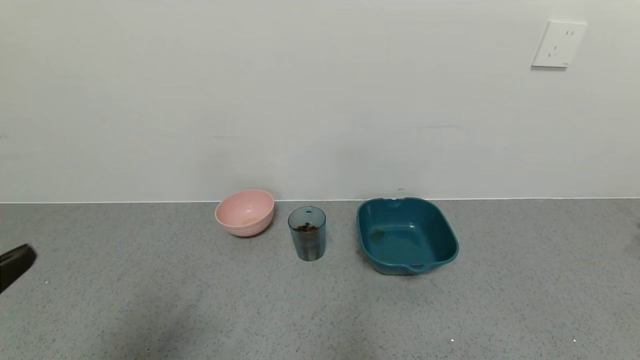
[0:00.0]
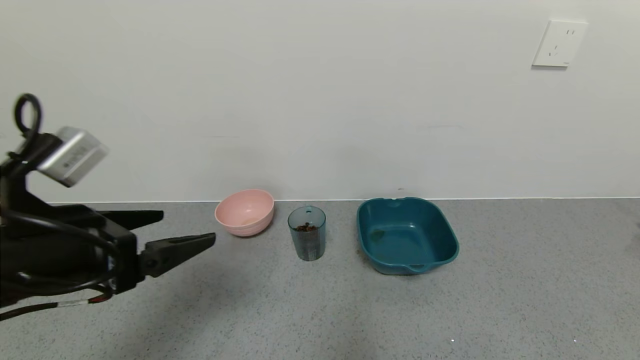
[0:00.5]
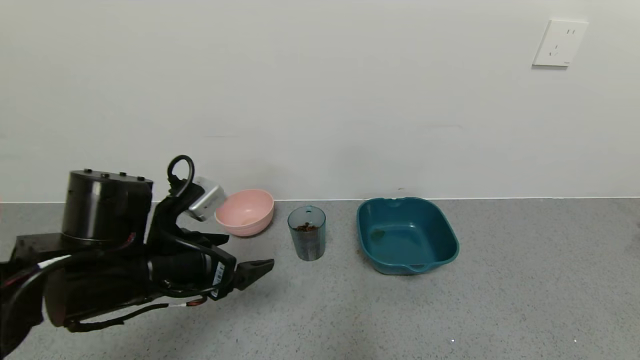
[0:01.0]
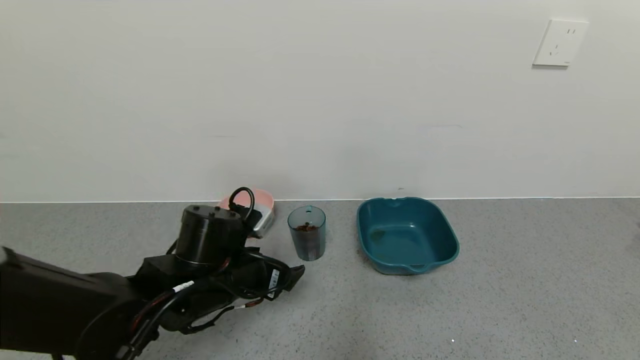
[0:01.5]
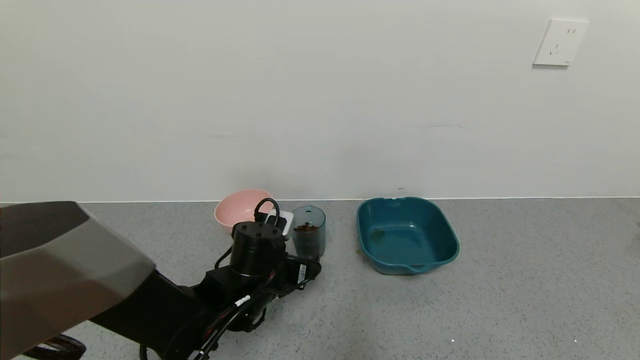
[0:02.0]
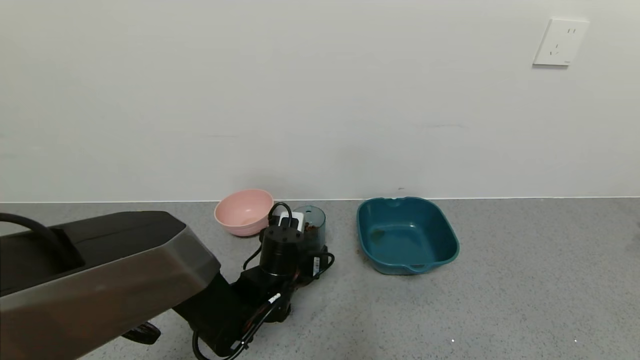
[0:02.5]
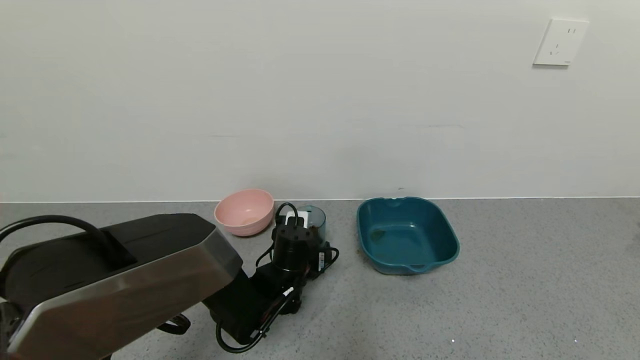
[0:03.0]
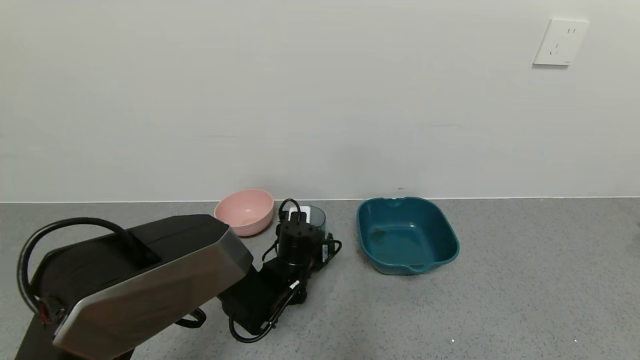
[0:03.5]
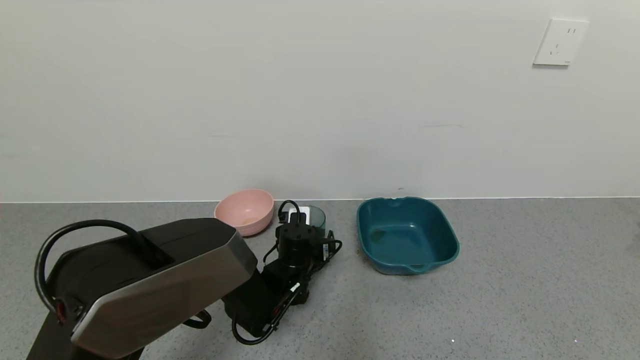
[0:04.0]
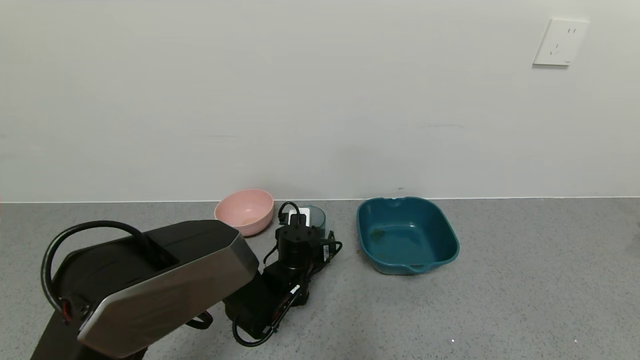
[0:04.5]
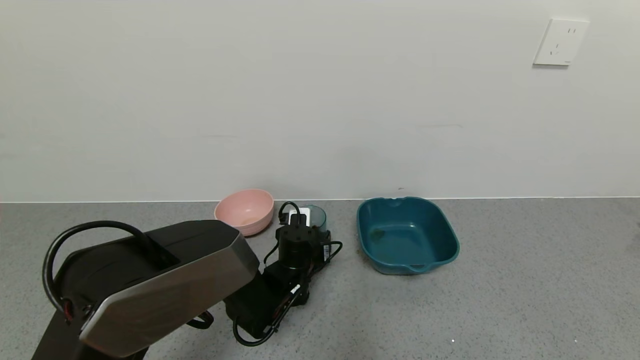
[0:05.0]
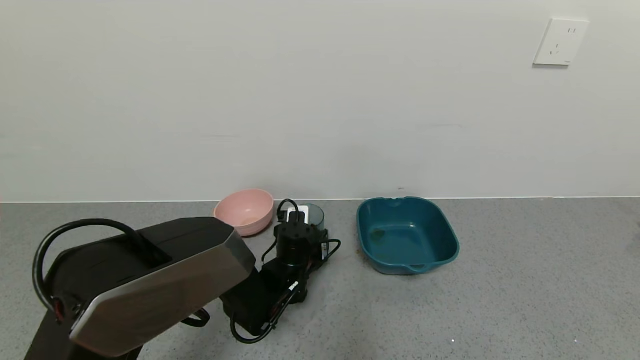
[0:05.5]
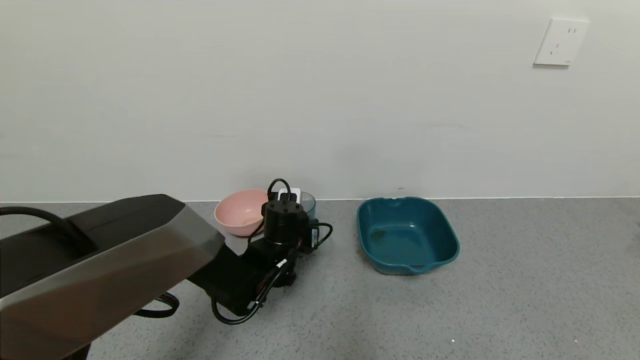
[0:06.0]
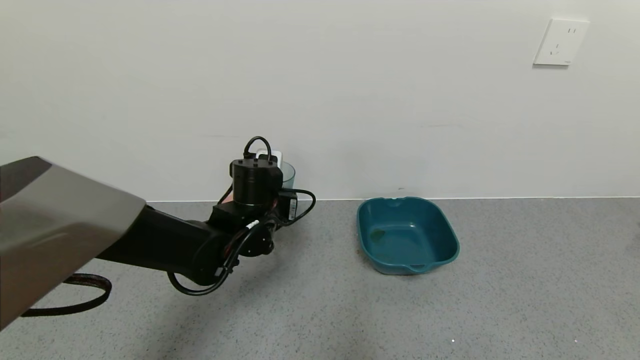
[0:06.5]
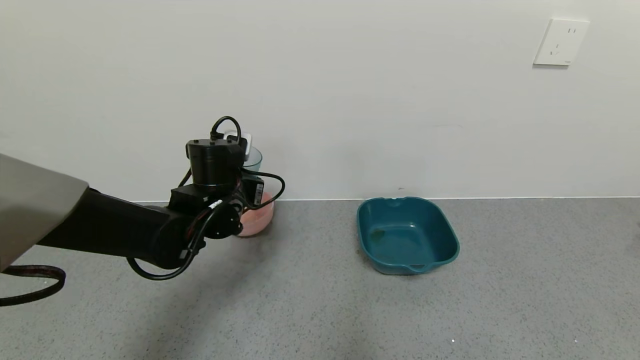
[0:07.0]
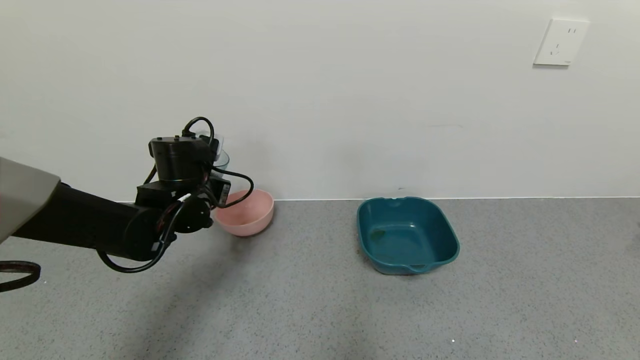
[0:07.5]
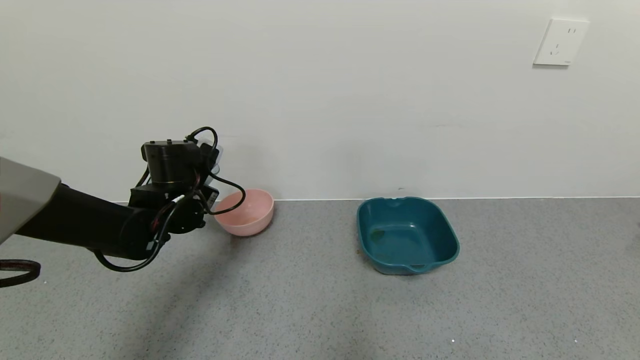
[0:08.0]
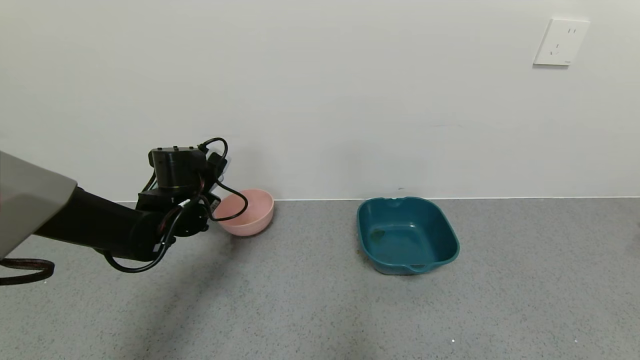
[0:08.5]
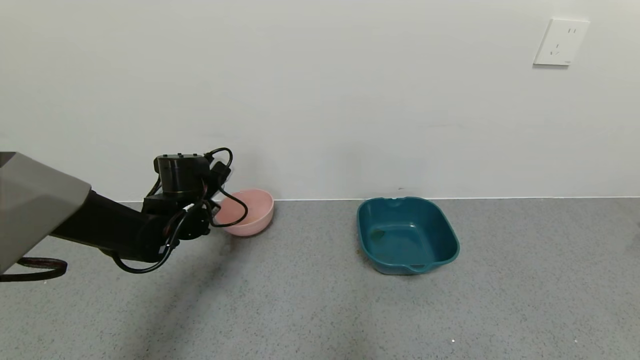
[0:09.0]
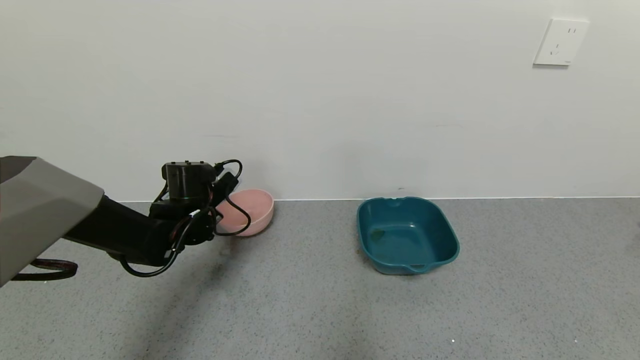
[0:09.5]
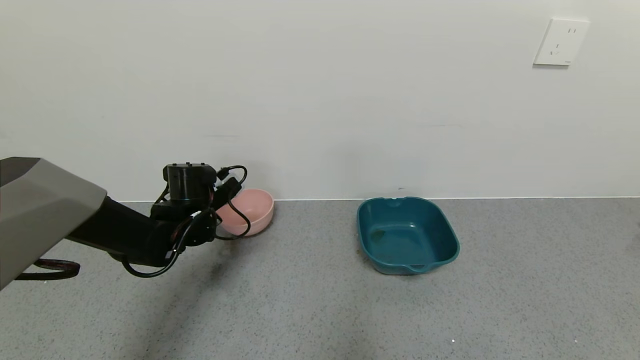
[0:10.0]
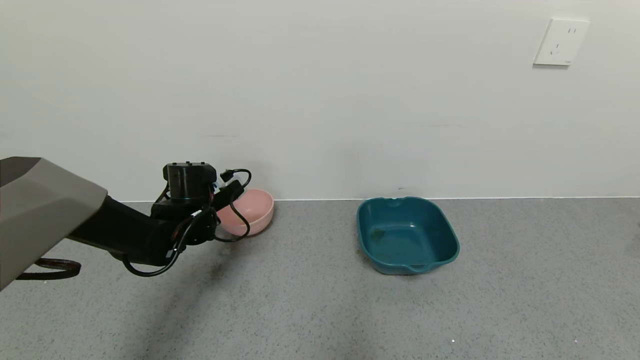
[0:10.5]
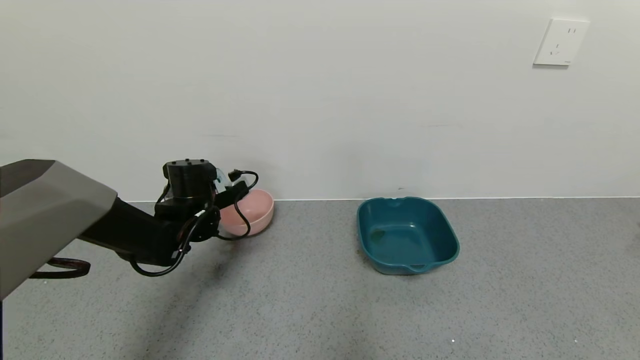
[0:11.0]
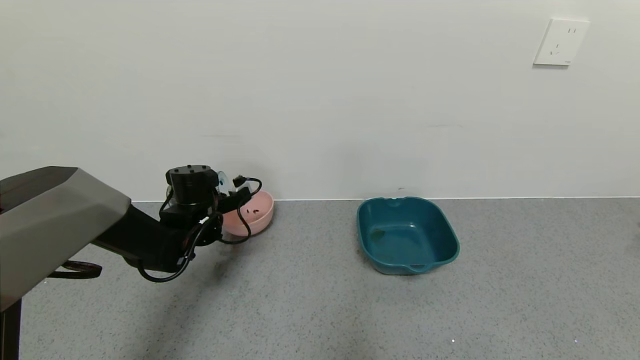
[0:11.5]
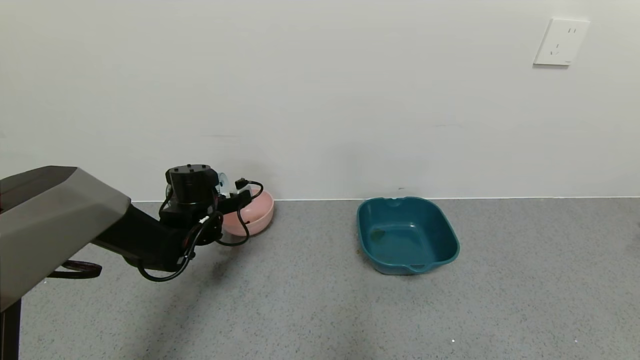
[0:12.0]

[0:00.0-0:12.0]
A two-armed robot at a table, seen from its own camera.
Task of the whole recording: use a gripper to pick up the cup and pour the solid into a bowl or tray.
Step, 0:00.0 to 0:05.0: Grasp the glass of coffee beans with the left gripper.
0:00.0 to 0:02.0: The left gripper moves forward, downward and to the right, about 35 cm.
0:02.0 to 0:04.0: The left gripper goes about 10 cm forward and downward.
0:04.0 to 0:06.0: The left gripper travels upward by roughly 5 cm, and closes its fingers.
0:06.0 to 0:08.0: The left gripper goes approximately 20 cm to the left and upward.

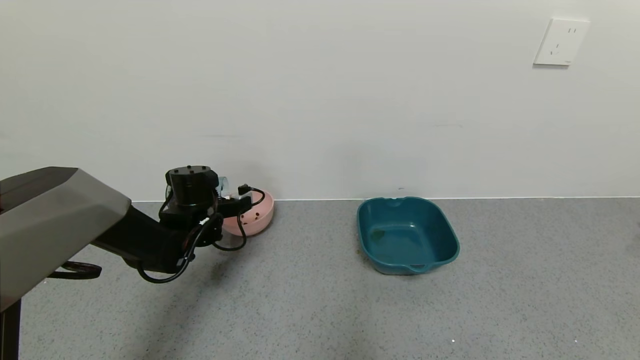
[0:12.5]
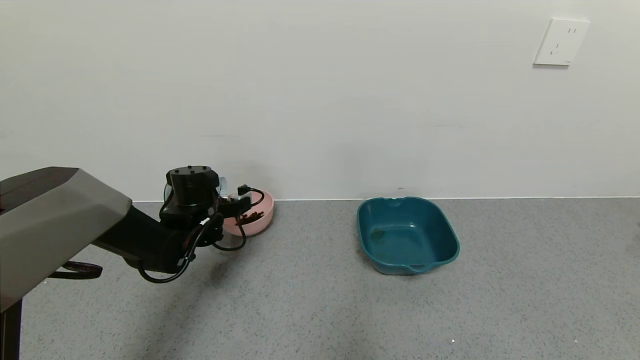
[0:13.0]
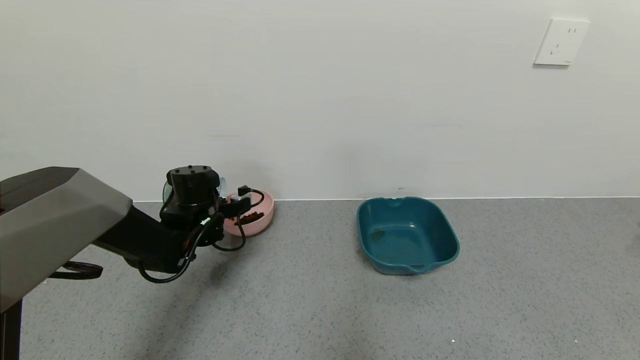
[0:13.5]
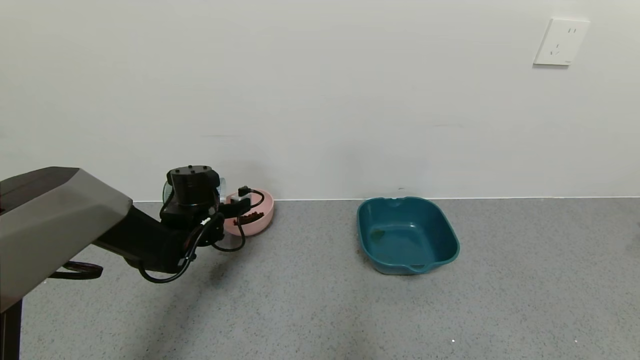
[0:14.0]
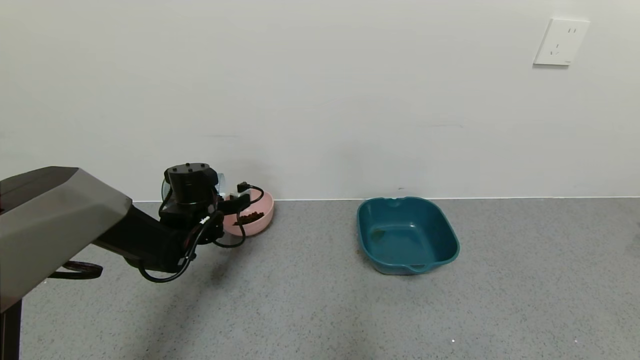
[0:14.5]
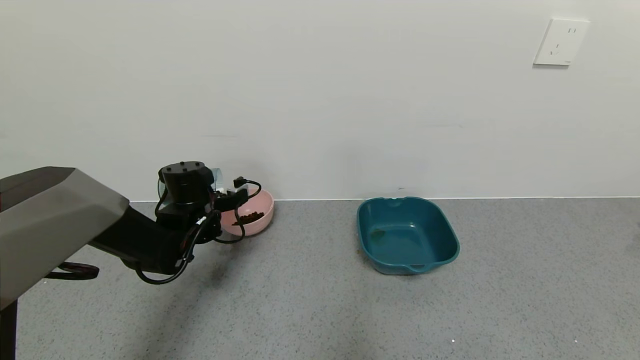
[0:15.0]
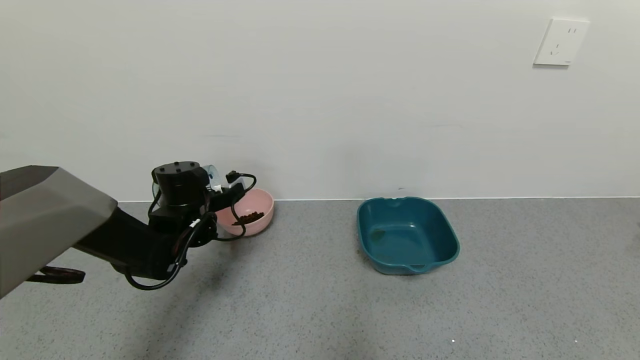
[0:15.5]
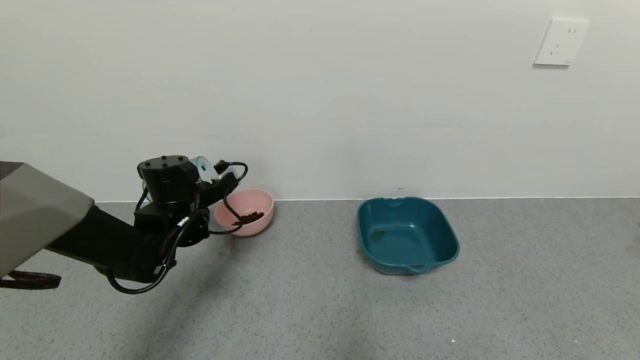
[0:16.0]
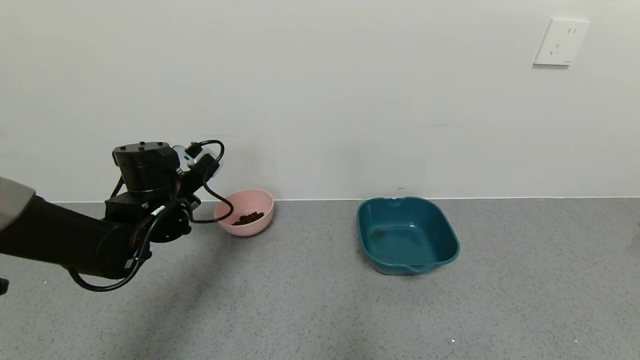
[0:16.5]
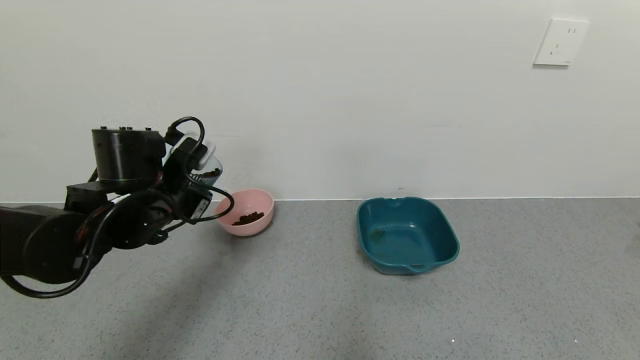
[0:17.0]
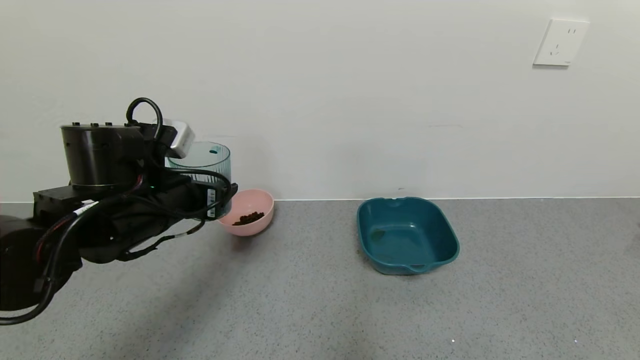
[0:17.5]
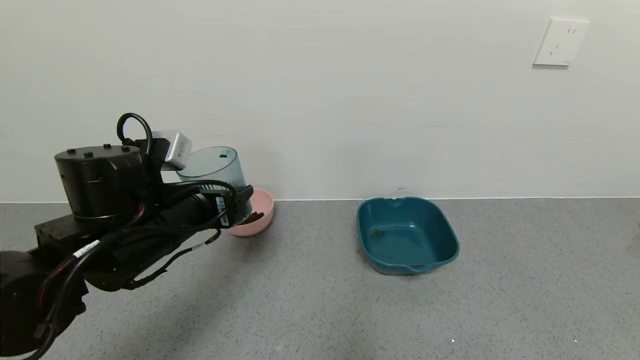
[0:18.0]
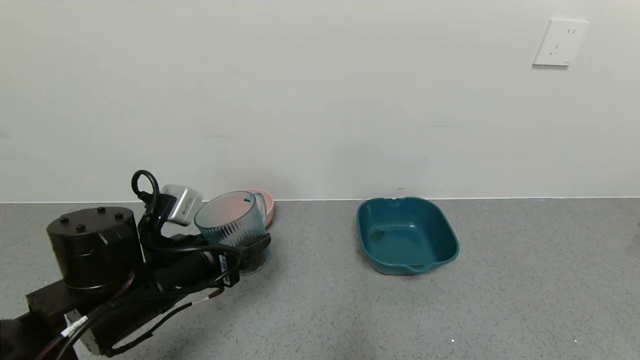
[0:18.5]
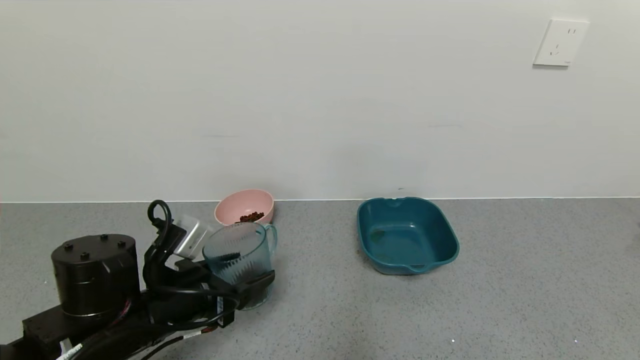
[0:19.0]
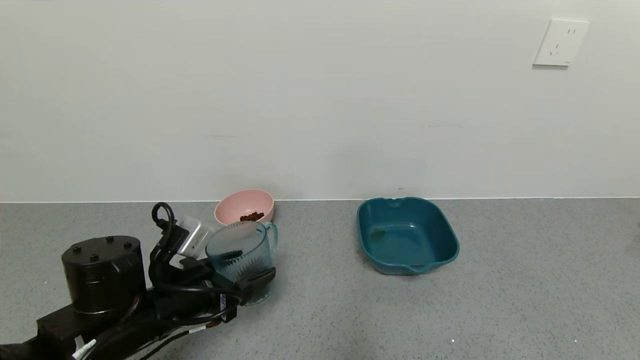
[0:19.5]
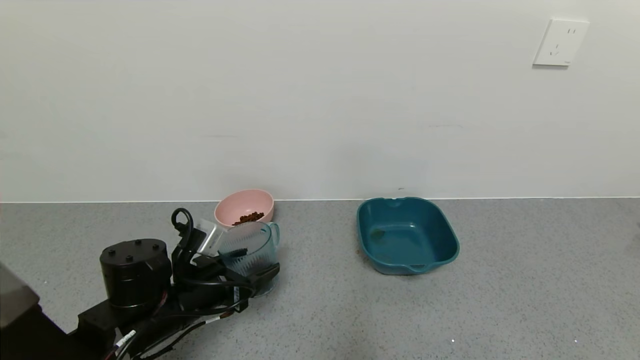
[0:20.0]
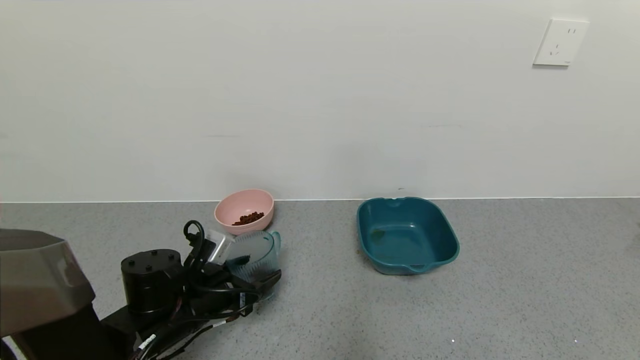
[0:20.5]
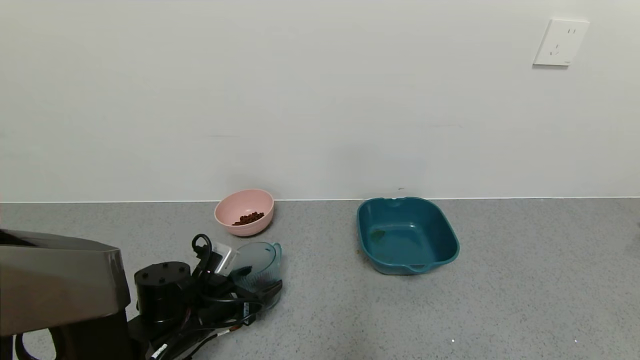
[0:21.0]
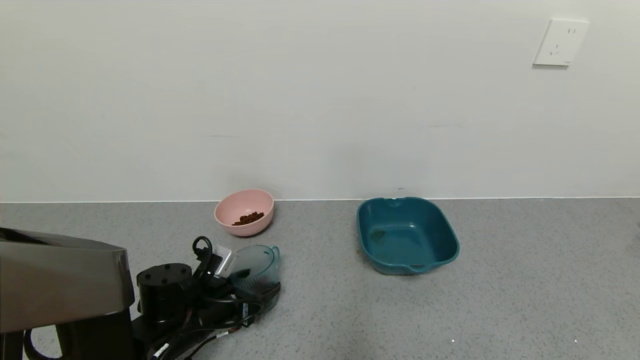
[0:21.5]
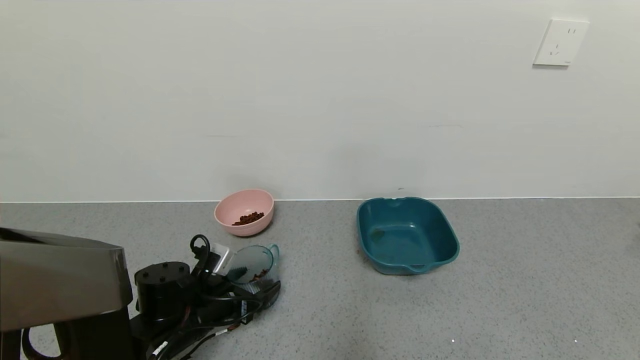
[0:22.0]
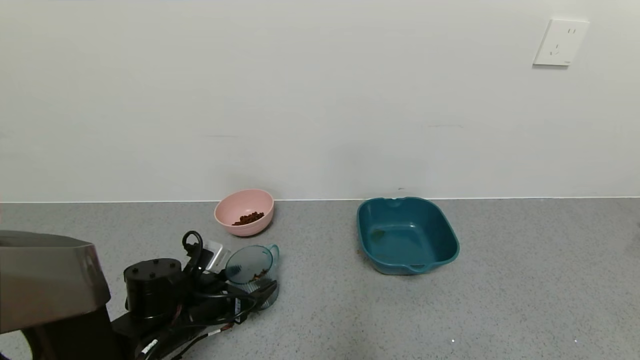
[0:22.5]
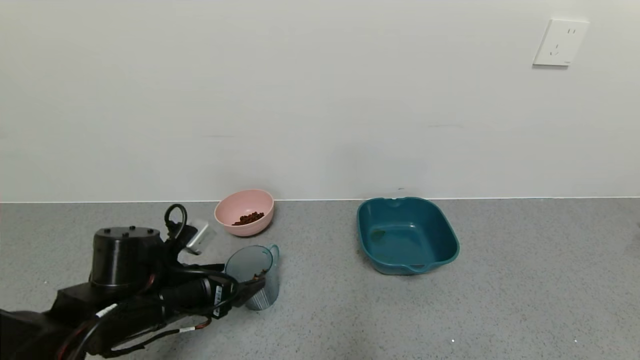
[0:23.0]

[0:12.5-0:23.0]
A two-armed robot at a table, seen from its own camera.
Task of the whole recording: use a gripper to pick up the cup and pour the solid into a bowl or tray.
Step, 0:12.5 to 0:16.5: Pour the coffee beans into the pink bowl with the left gripper.
0:12.5 to 0:14.5: Both grippers stay put.
0:14.5 to 0:16.5: The left gripper goes some 10 cm upward and backward.
0:16.5 to 0:19.0: The left gripper heads backward, covering about 15 cm.
0:19.0 to 0:21.0: The left gripper is displaced downward and forward by some 10 cm.
0:21.0 to 0:23.0: The left gripper travels upward by roughly 10 cm, and opens.
